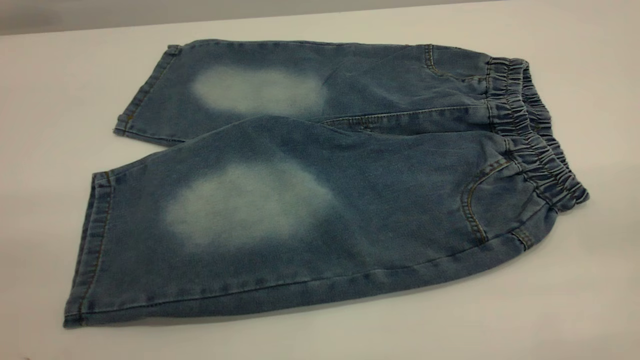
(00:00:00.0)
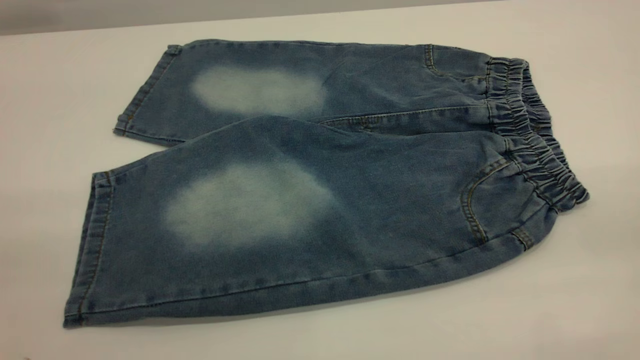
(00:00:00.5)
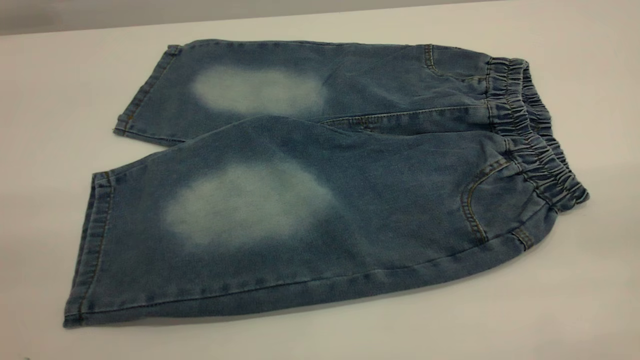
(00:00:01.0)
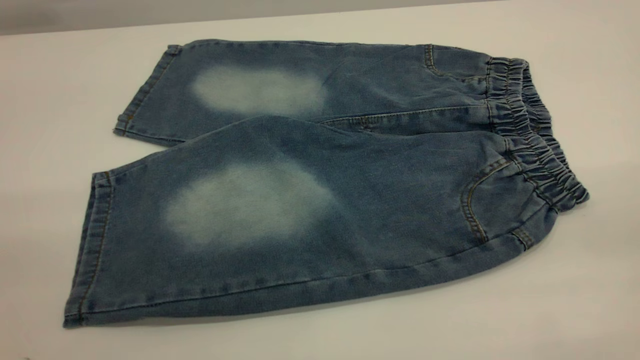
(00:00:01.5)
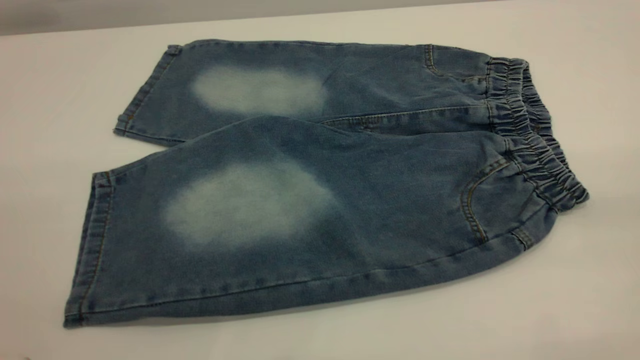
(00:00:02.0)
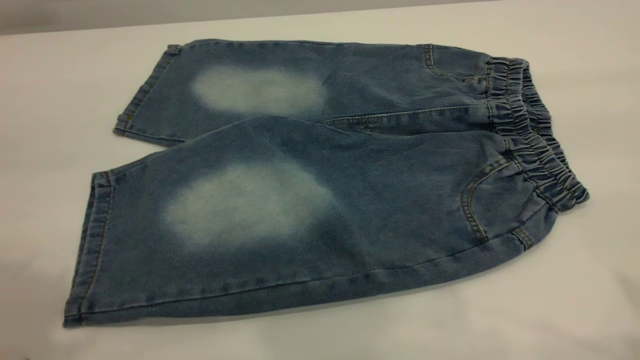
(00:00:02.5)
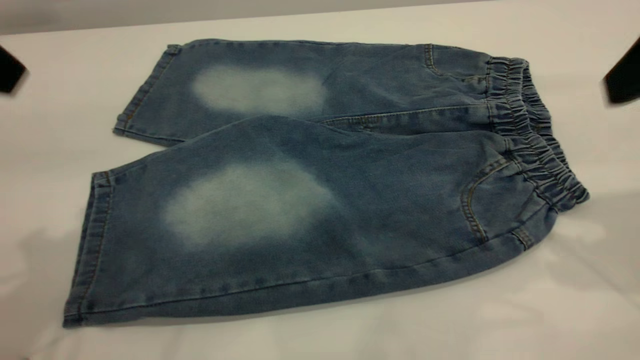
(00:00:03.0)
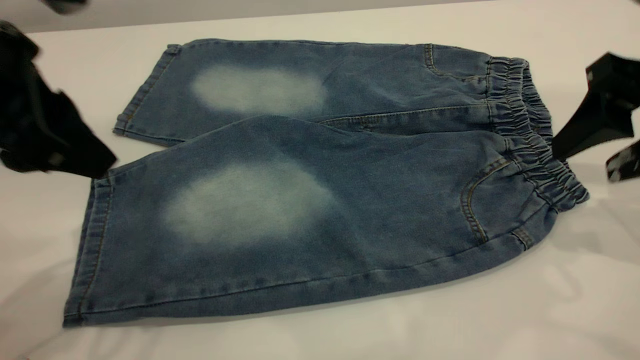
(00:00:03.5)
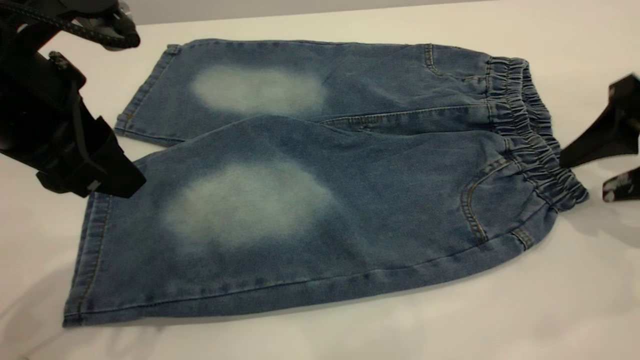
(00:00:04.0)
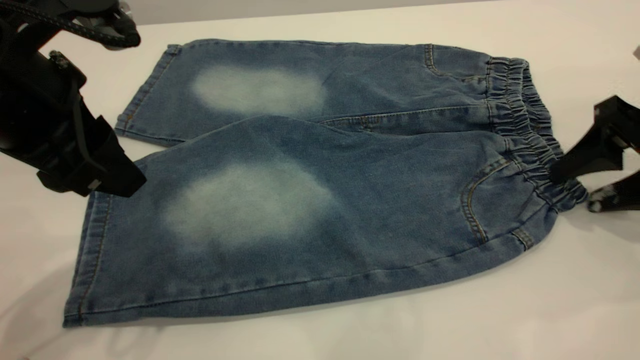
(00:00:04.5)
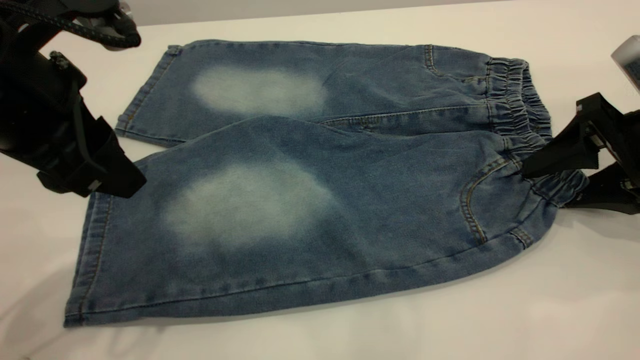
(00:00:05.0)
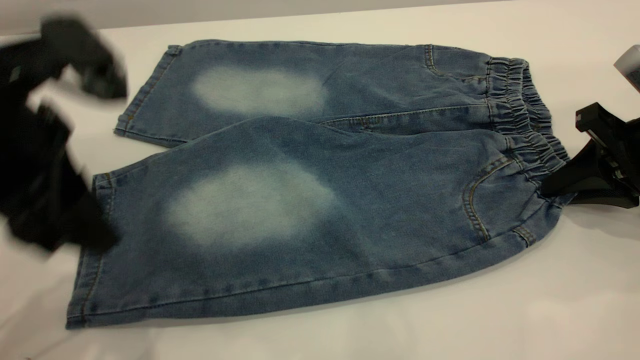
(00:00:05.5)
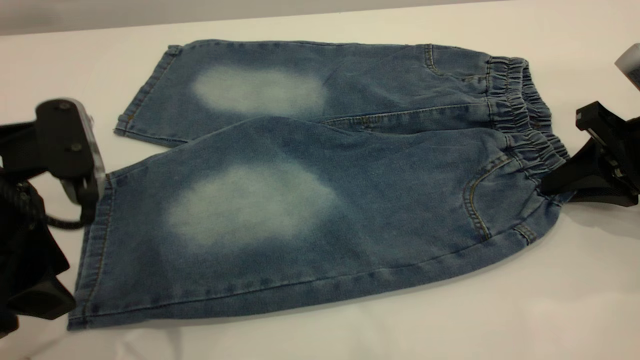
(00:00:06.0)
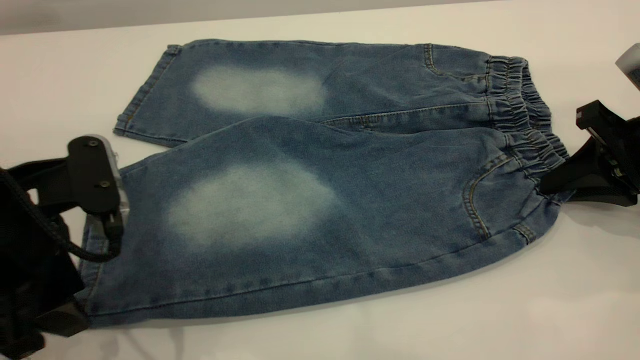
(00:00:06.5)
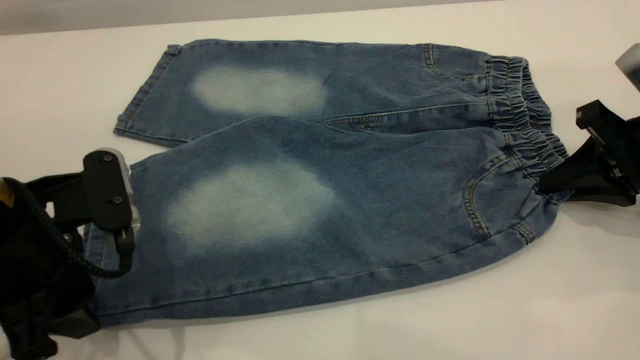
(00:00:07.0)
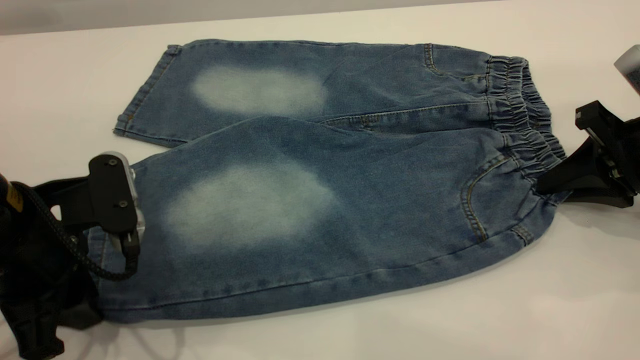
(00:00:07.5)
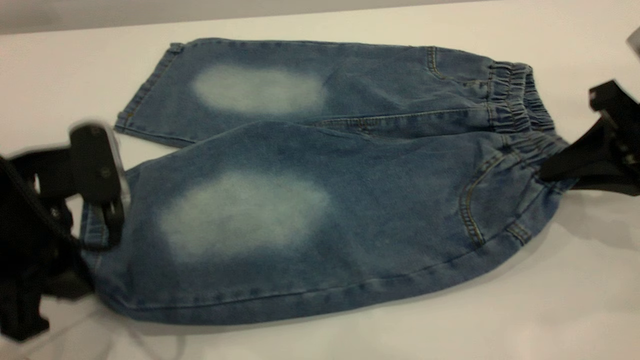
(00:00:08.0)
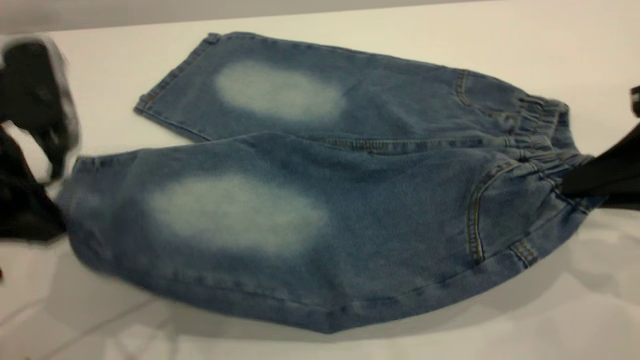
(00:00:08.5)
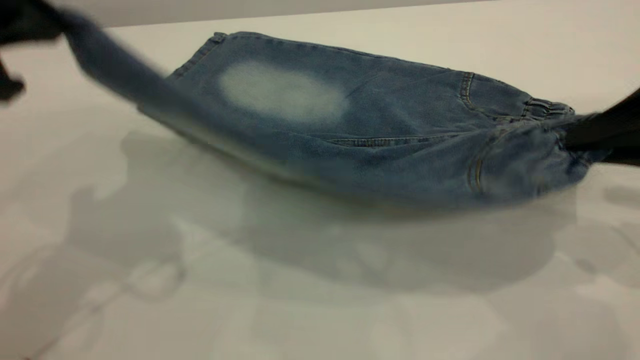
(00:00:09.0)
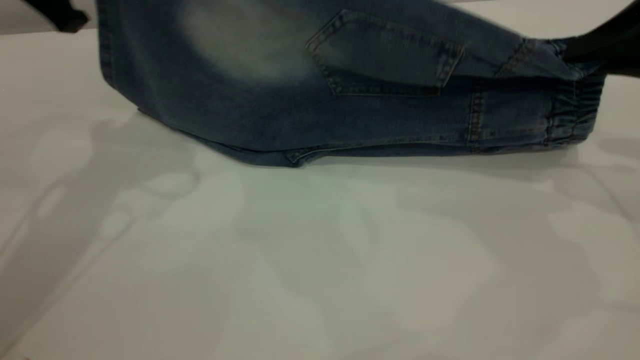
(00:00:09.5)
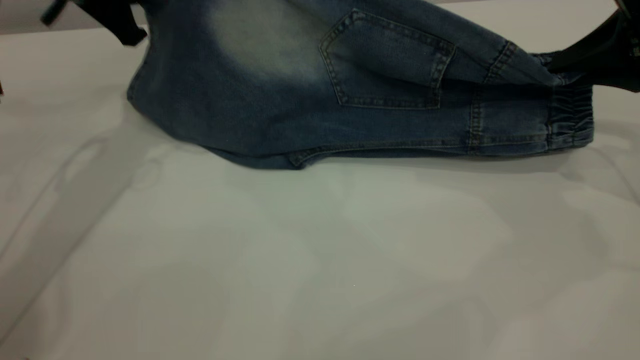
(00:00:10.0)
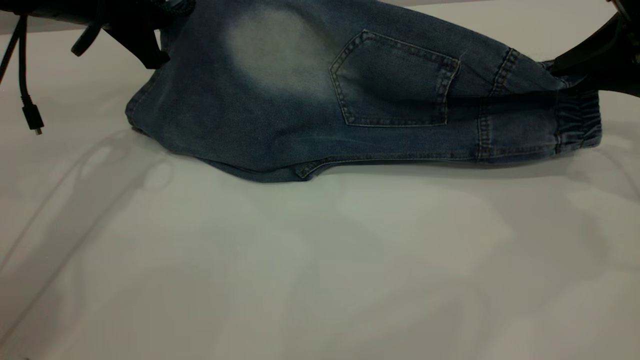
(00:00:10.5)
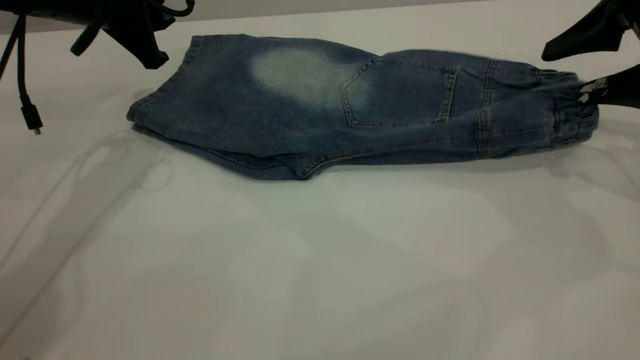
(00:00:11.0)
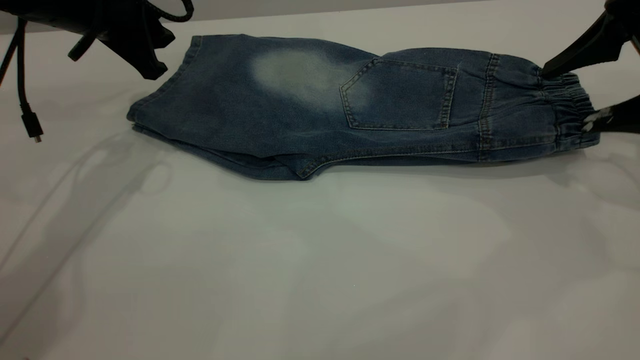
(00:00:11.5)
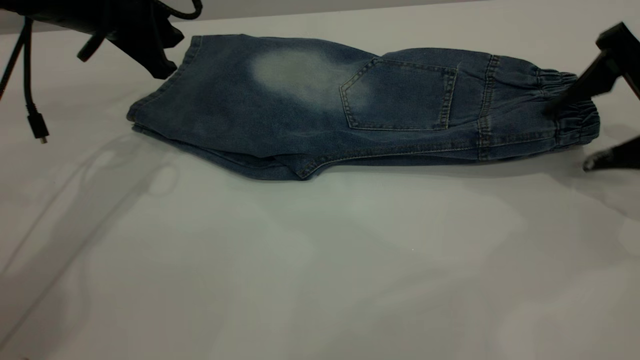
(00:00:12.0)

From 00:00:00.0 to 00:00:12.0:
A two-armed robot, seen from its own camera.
Step, from 00:00:00.0 to 00:00:11.0: Fold the bottom of the pants upward.
From 00:00:02.0 to 00:00:04.0: The right gripper goes approximately 35 cm downward and forward. Meanwhile the left gripper moves forward and downward, about 30 cm.
From 00:00:04.0 to 00:00:06.0: The left gripper moves roughly 5 cm; the right gripper shifts by some 5 cm, and closes up.
From 00:00:06.0 to 00:00:08.0: The left gripper closes.
From 00:00:08.0 to 00:00:10.0: The left gripper shifts approximately 20 cm forward, while the right gripper heads upward and forward, covering about 5 cm.
From 00:00:10.0 to 00:00:12.0: The right gripper opens, while the left gripper opens up.

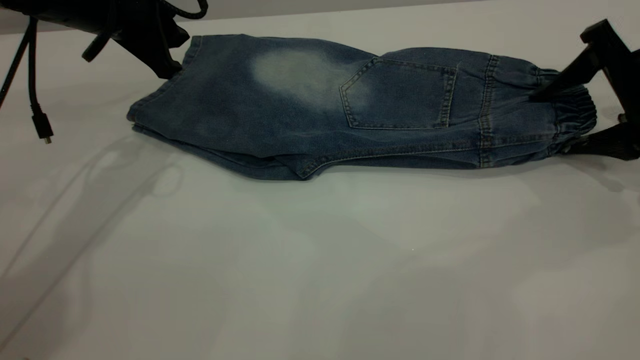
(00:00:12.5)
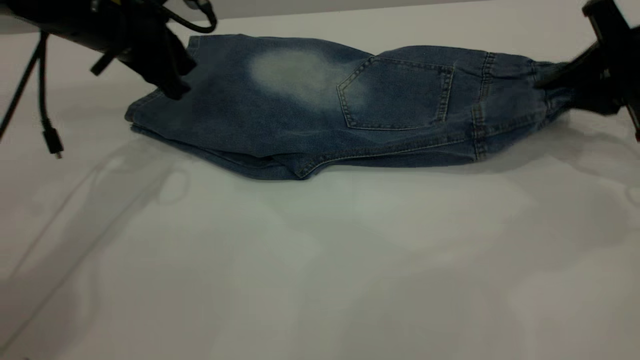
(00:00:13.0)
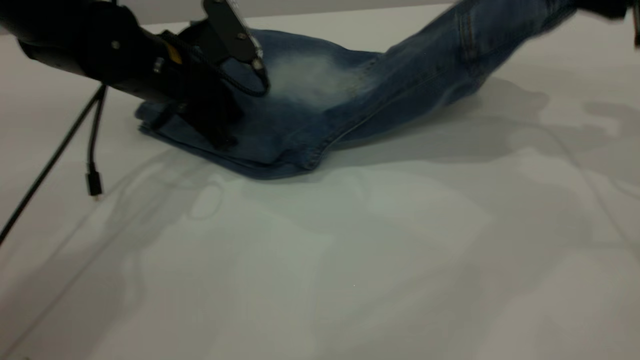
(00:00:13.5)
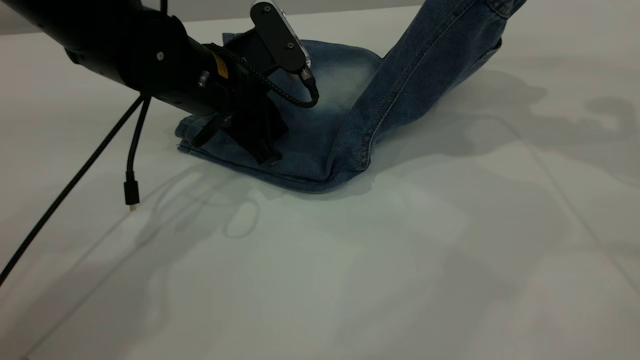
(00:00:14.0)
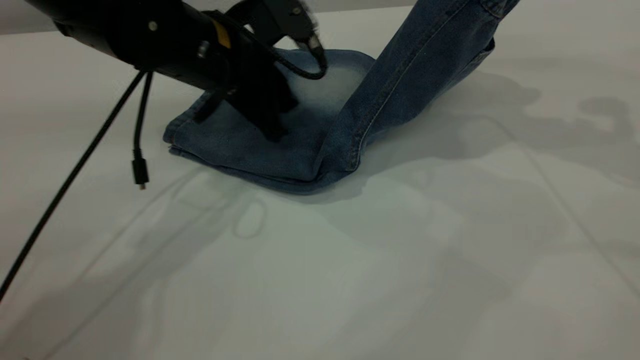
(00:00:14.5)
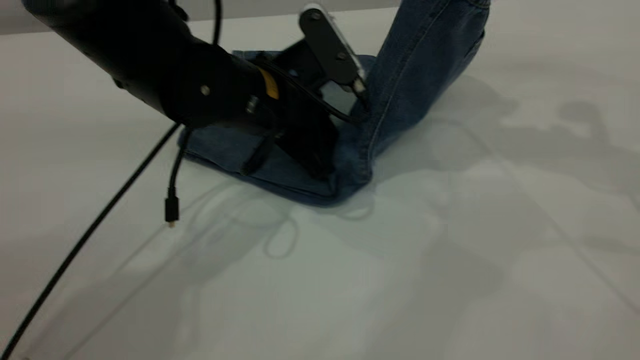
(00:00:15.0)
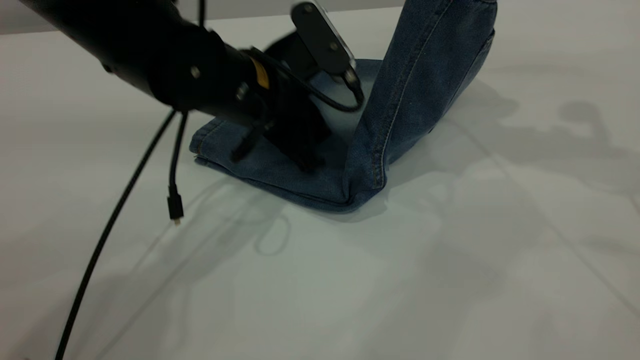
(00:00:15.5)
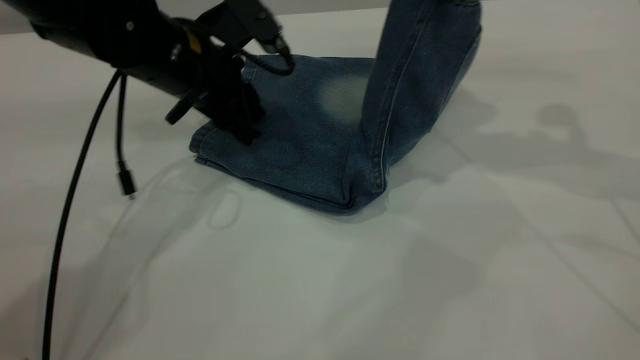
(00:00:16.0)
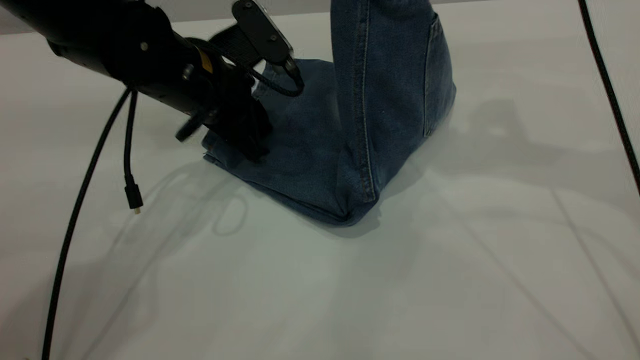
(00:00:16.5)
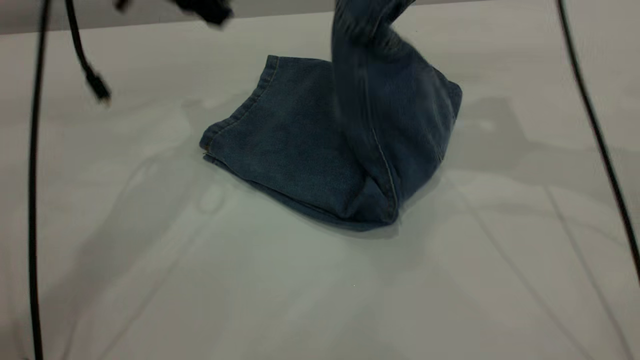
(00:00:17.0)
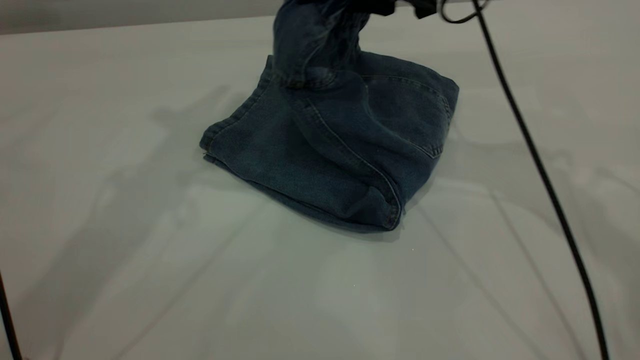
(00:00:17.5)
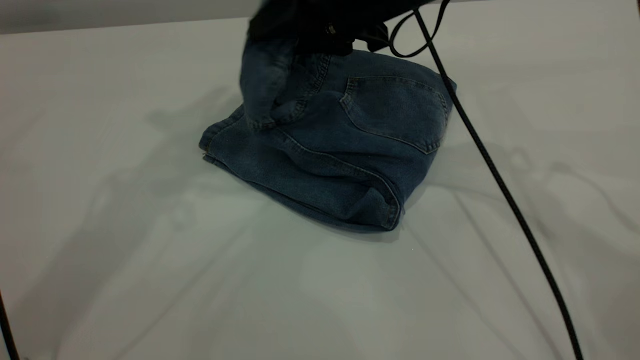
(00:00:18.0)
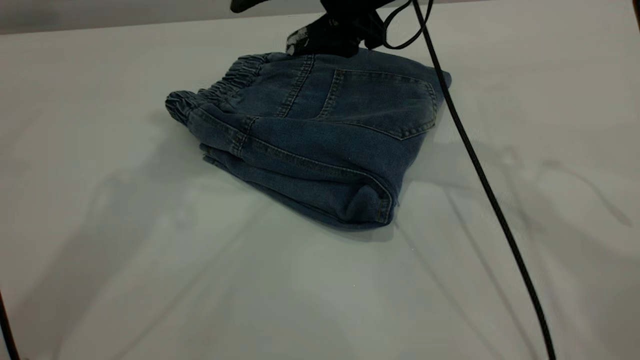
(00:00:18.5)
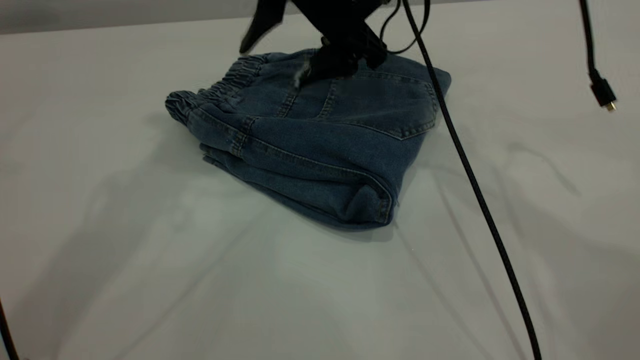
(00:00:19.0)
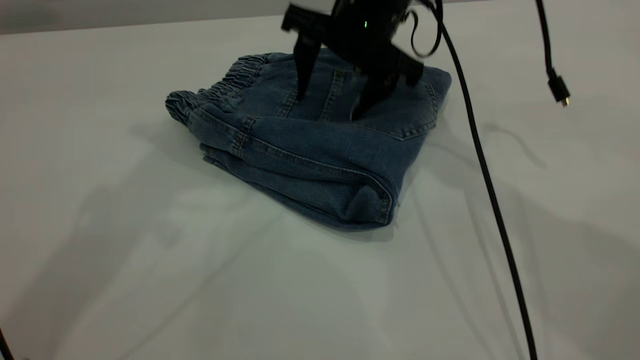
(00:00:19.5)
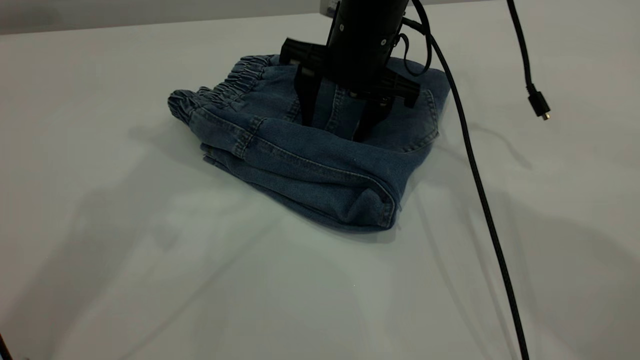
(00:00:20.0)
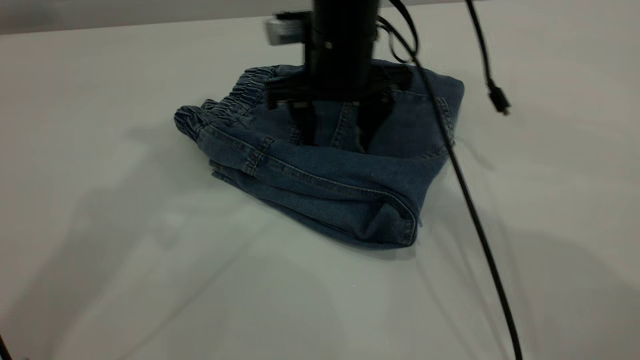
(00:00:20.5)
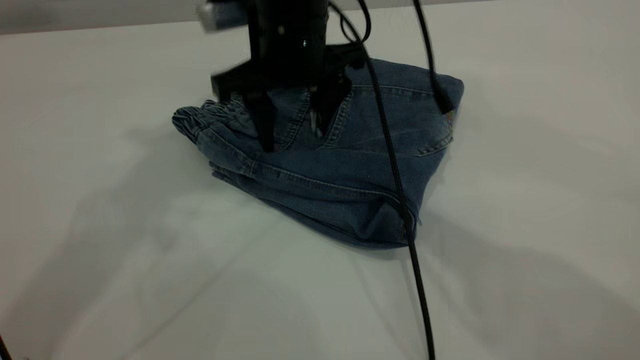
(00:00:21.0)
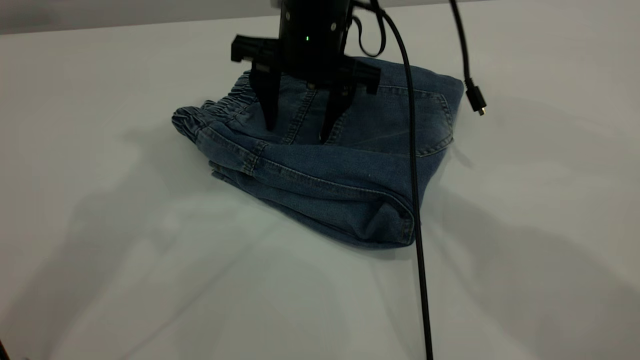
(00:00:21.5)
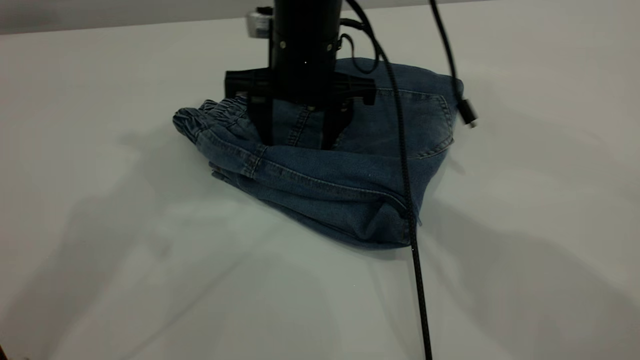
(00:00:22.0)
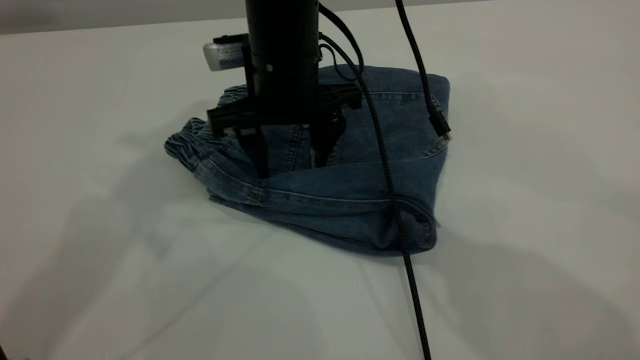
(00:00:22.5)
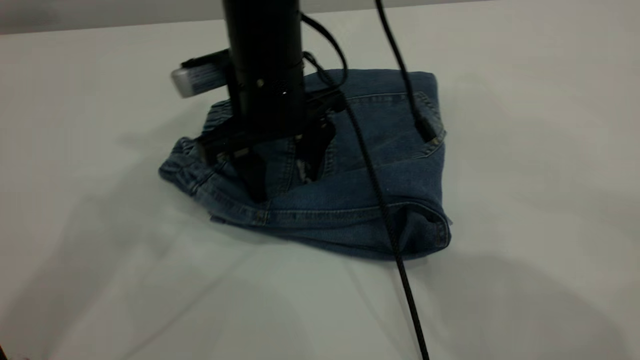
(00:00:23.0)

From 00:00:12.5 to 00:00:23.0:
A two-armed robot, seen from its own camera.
Step, from 00:00:12.5 to 00:00:18.5: Fold your pants from right to left.
From 00:00:12.5 to 00:00:14.5: The right gripper heads upward, covering some 15 cm, and closes up, while the left gripper heads to the right, covering some 10 cm.
From 00:00:14.5 to 00:00:16.5: The right gripper shifts about 10 cm to the left.
From 00:00:16.5 to 00:00:19.0: The left gripper moves upward, some 25 cm. The right gripper is displaced to the left and downward by some 15 cm, and opens up.
From 00:00:19.0 to 00:00:21.0: The right gripper shifts roughly 5 cm to the left.
From 00:00:21.0 to 00:00:23.0: The right gripper shifts by approximately 5 cm.
